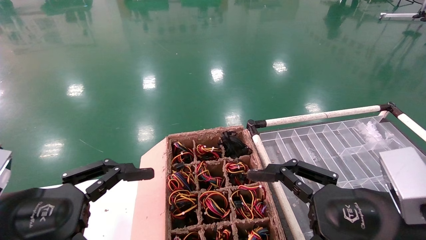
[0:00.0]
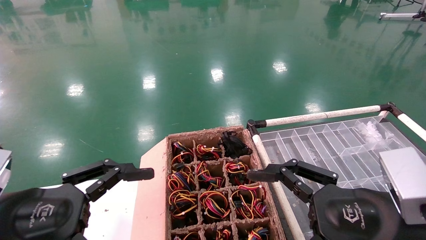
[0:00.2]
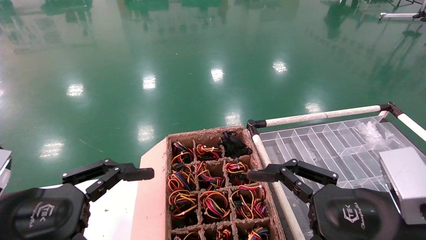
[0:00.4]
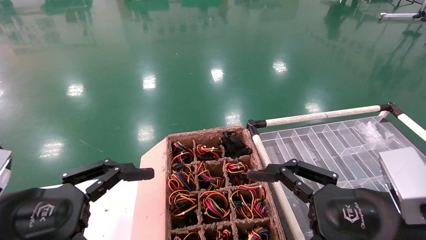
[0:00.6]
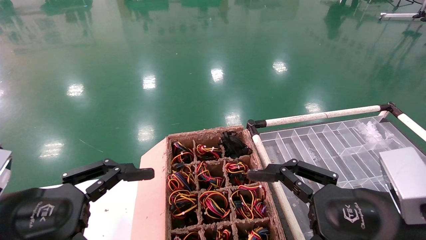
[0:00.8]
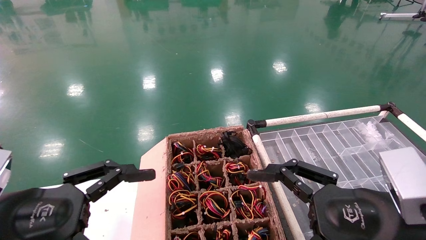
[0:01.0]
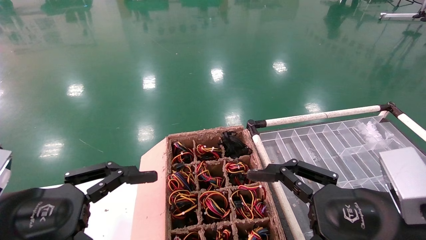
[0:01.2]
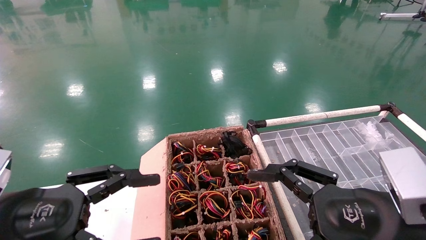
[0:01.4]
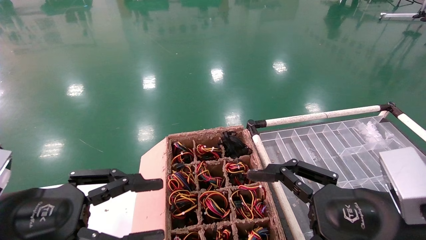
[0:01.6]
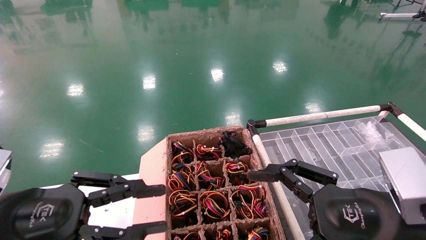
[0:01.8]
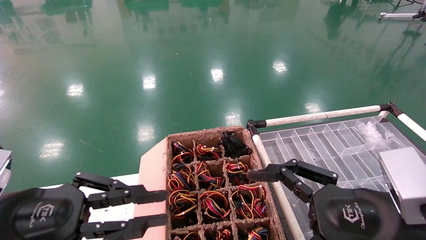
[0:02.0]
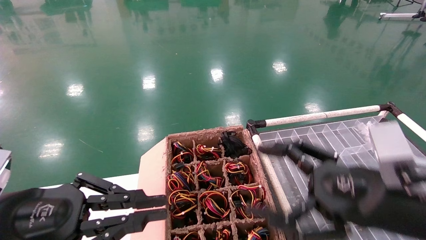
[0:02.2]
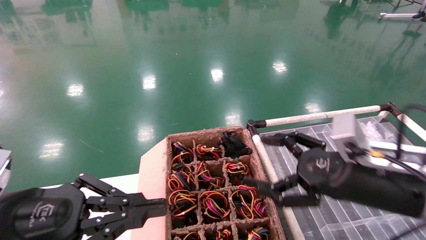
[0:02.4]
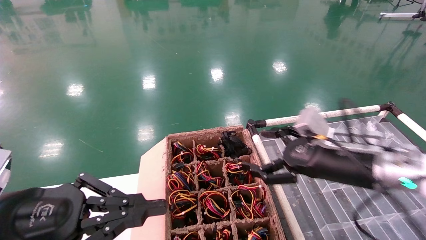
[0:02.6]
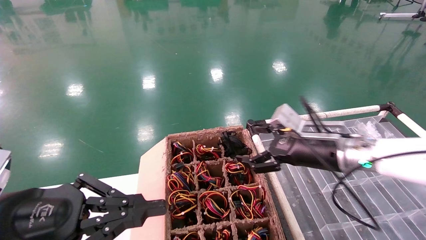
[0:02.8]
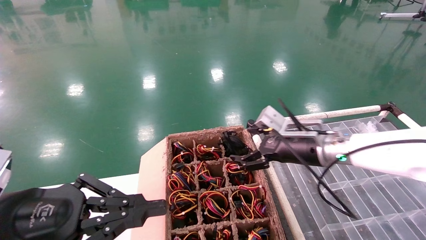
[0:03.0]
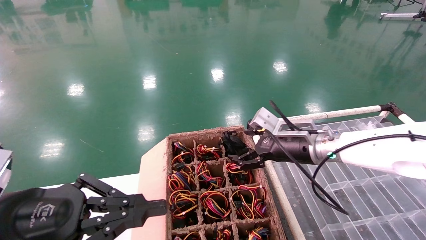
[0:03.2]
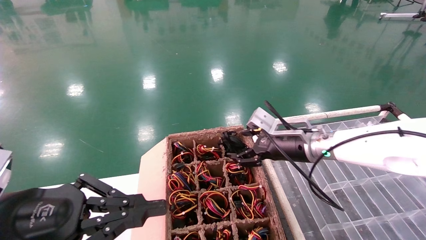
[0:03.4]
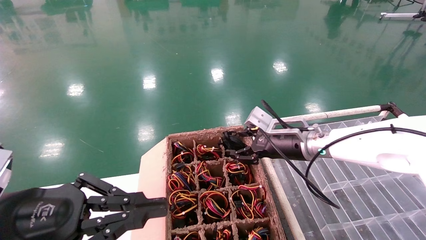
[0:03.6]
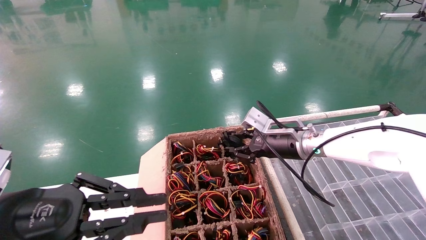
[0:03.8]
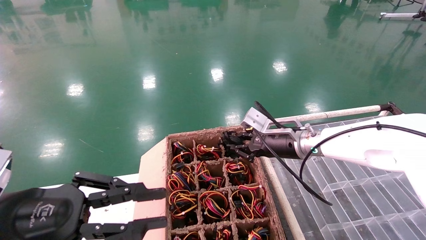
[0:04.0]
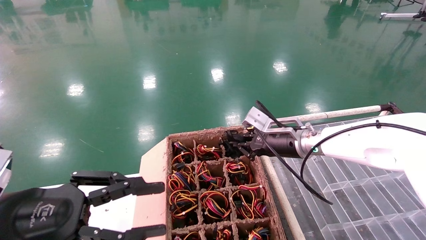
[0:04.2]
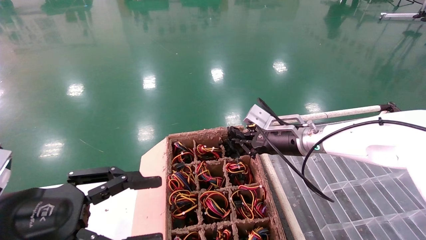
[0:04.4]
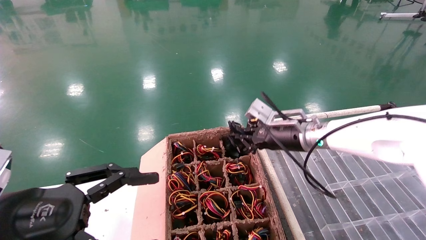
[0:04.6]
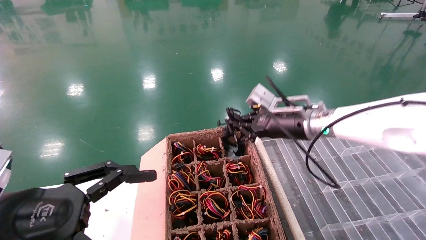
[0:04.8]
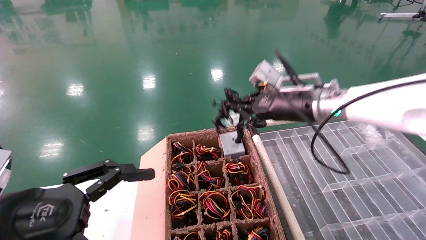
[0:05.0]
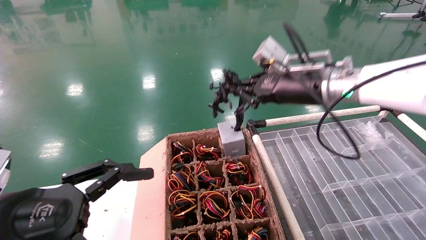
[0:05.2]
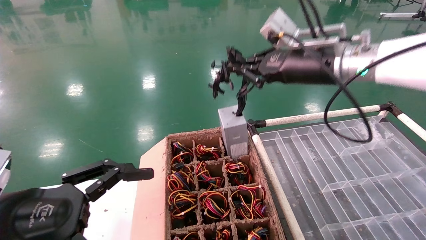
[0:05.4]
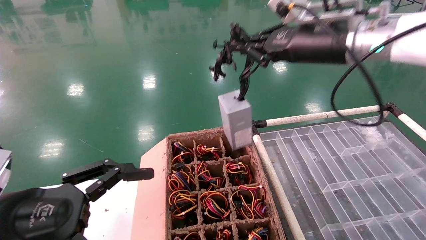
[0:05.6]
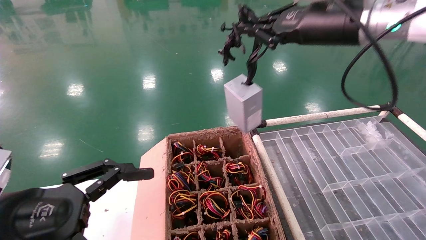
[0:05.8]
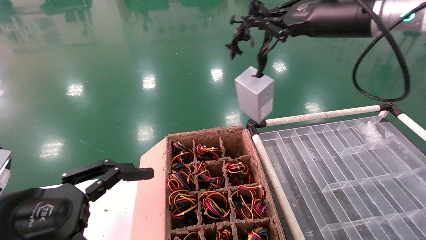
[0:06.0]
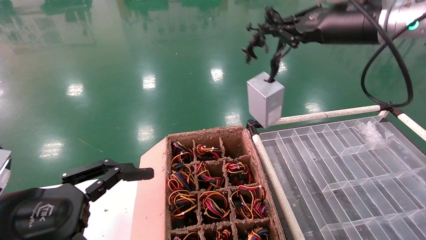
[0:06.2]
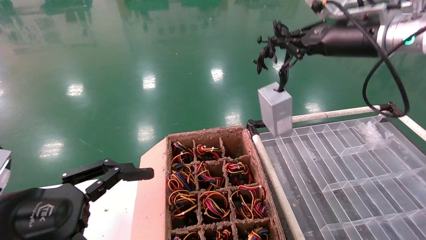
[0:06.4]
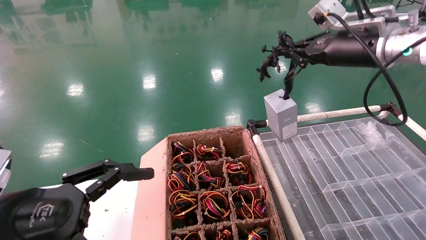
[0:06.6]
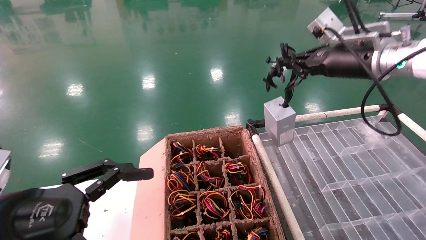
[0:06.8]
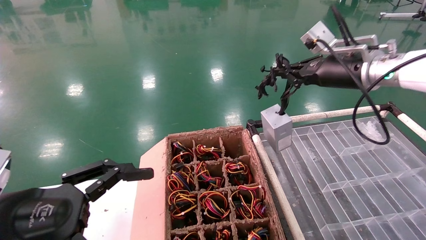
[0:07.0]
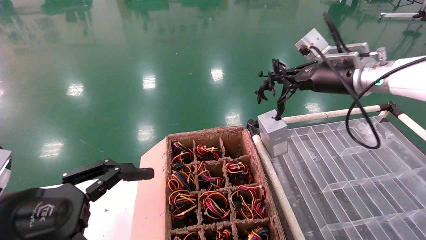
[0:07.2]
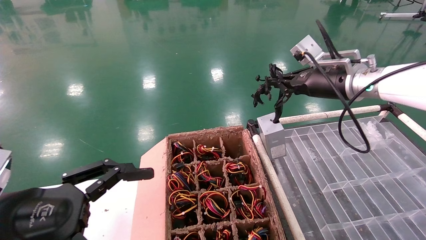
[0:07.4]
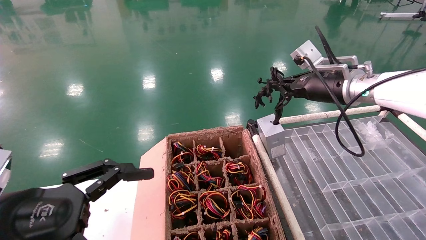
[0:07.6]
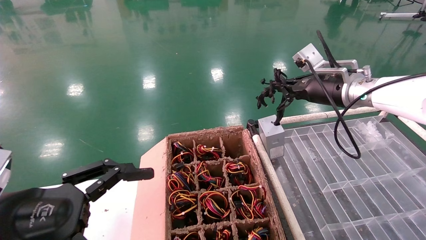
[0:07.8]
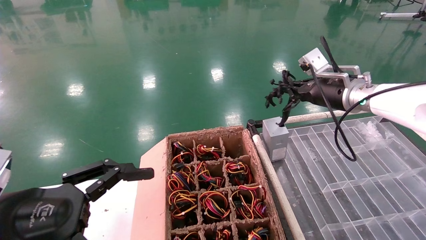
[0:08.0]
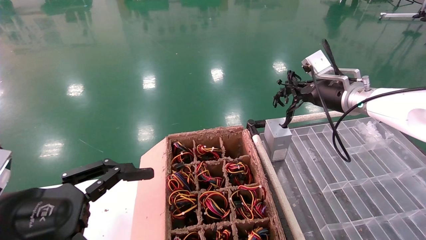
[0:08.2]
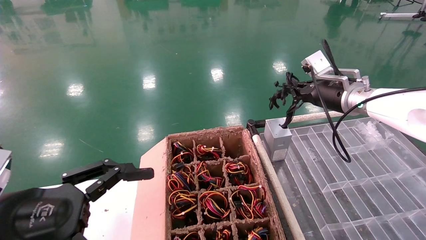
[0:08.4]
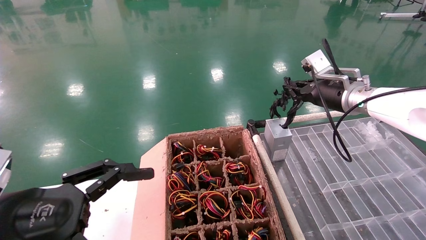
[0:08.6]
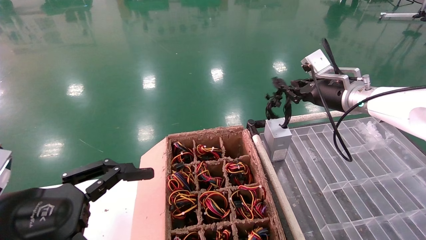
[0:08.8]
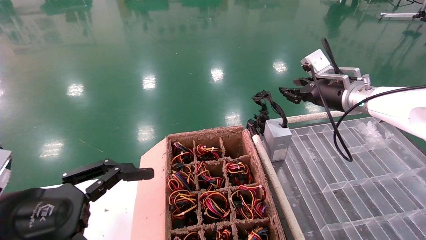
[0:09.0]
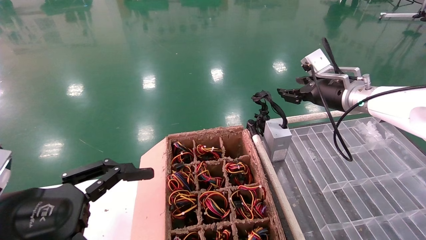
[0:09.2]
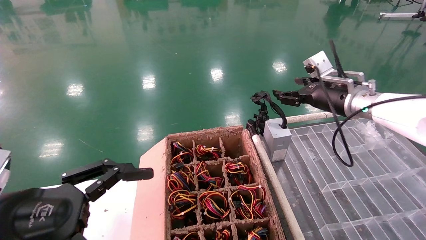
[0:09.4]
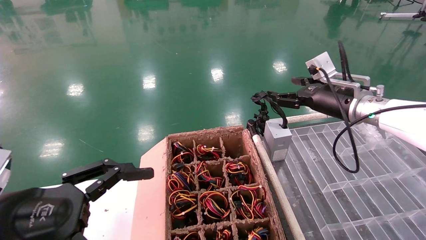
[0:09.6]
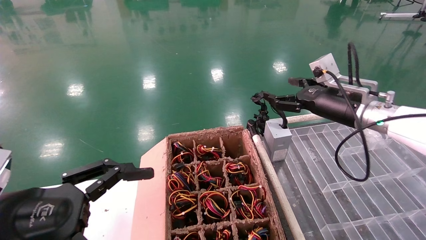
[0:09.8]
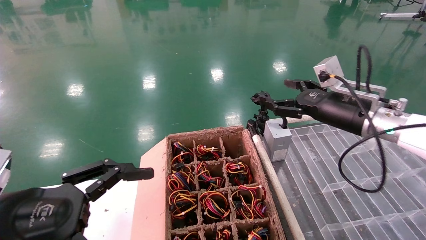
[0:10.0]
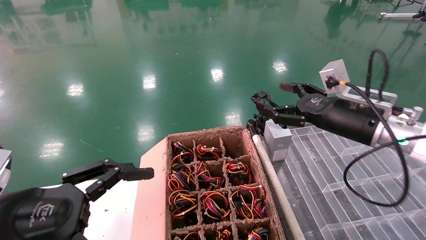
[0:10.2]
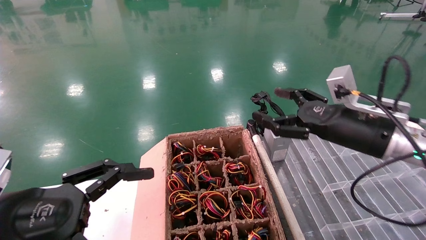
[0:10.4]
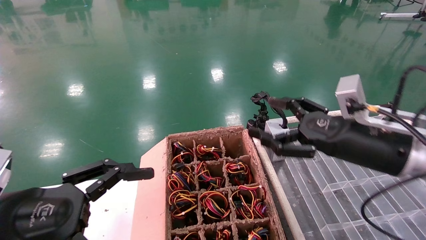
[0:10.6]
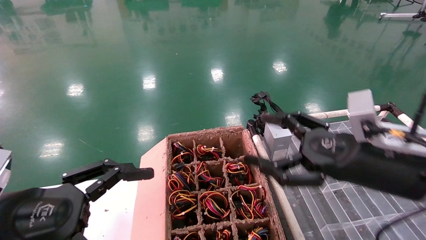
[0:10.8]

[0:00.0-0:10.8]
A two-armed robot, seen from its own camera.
Step, 0:02.6 to 0:04.4: Grab and lift the power supply from the large box.
Step, 0:04.6 to 0:08.6: Place the power supply on the operating table.
0:00.0 to 0:01.6: Both grippers stay about where they are.
0:01.6 to 0:03.0: The right gripper travels forward by roughly 20 cm, while the left gripper closes.
0:03.0 to 0:04.6: The left gripper opens, while the right gripper ends up roughly 5 cm from where it was, and closes up.
0:04.6 to 0:06.2: The left gripper opens; the right gripper shifts roughly 20 cm upward.
0:06.2 to 0:07.8: The right gripper shifts approximately 15 cm downward and forward.
0:07.8 to 0:09.2: The right gripper opens up.
0:09.2 to 0:10.8: The right gripper is displaced backward by about 20 cm, and opens its fingers.

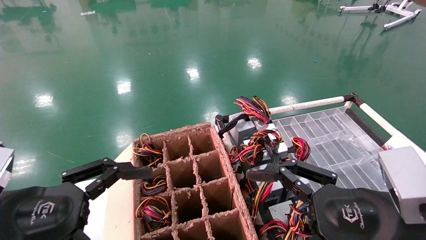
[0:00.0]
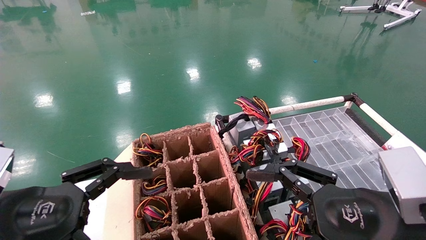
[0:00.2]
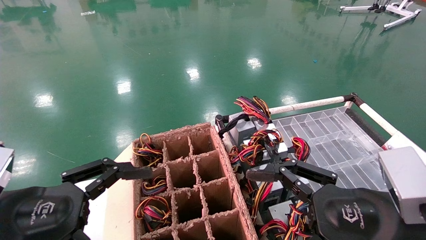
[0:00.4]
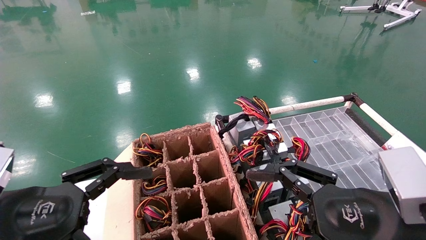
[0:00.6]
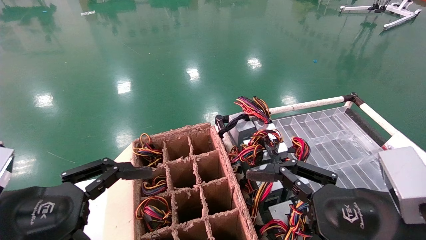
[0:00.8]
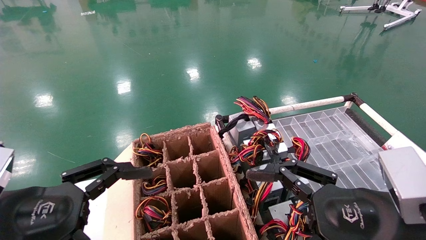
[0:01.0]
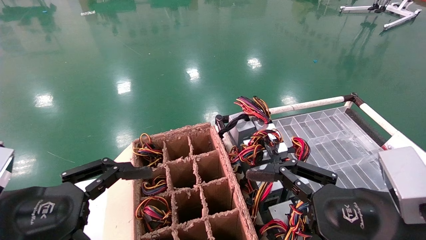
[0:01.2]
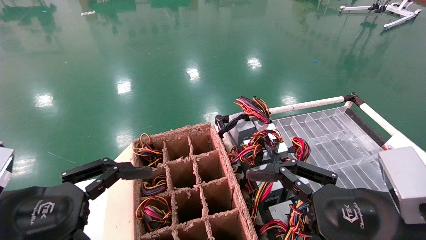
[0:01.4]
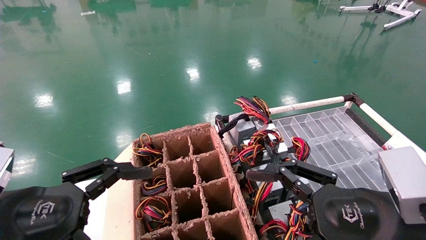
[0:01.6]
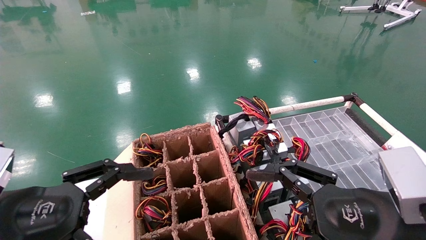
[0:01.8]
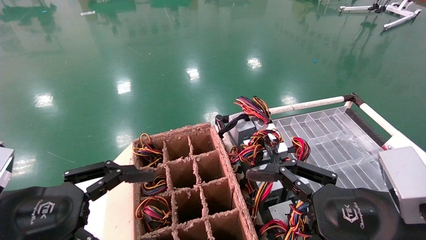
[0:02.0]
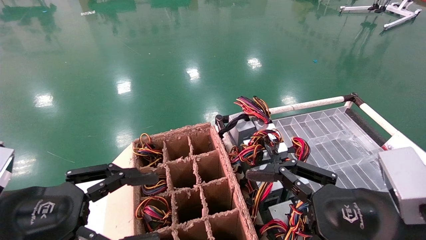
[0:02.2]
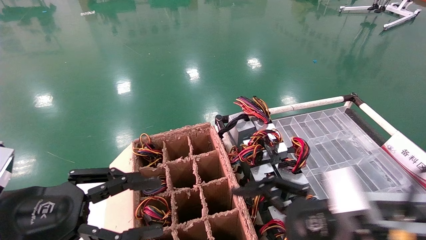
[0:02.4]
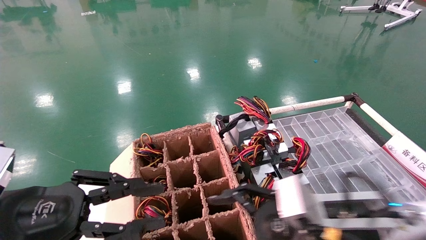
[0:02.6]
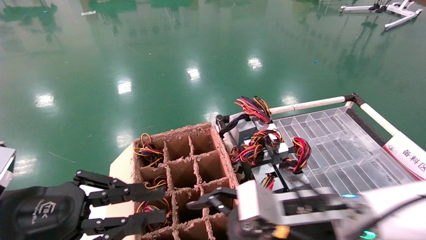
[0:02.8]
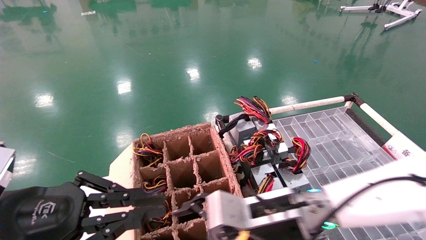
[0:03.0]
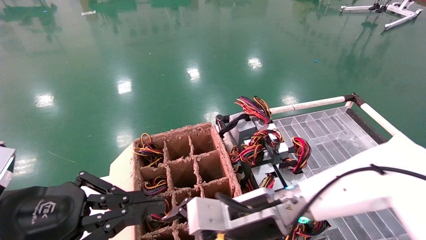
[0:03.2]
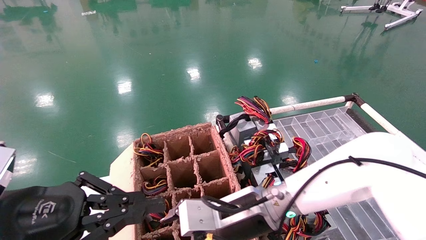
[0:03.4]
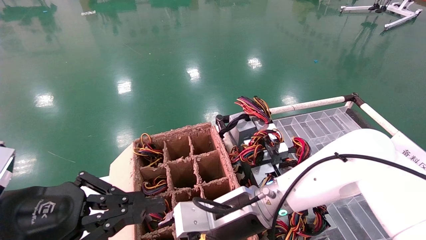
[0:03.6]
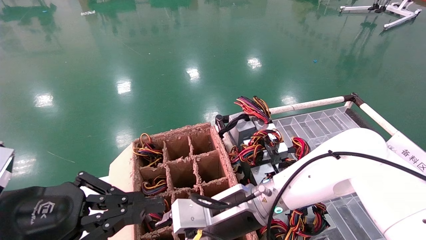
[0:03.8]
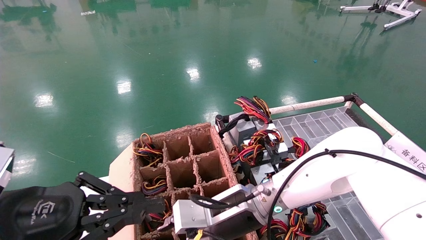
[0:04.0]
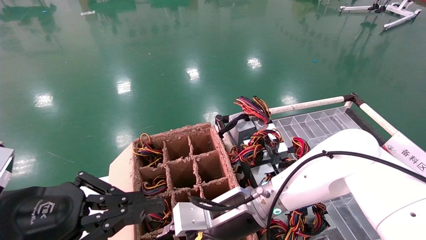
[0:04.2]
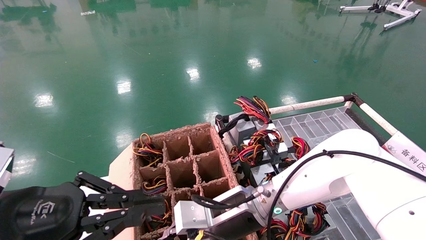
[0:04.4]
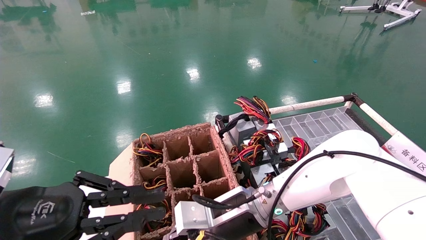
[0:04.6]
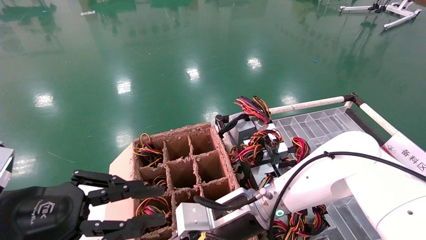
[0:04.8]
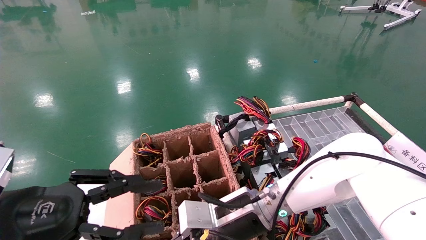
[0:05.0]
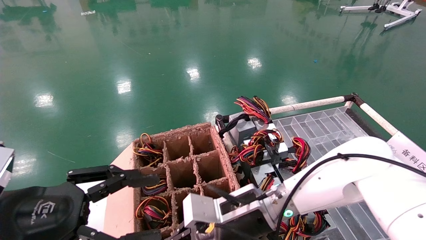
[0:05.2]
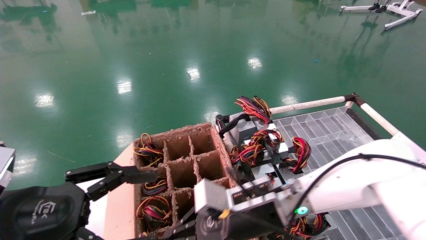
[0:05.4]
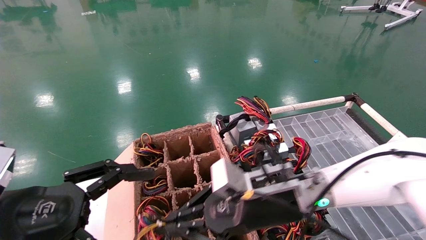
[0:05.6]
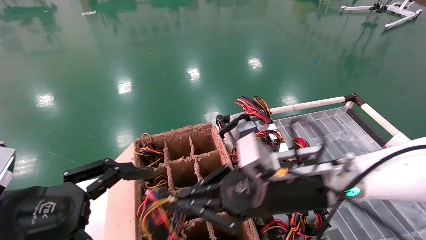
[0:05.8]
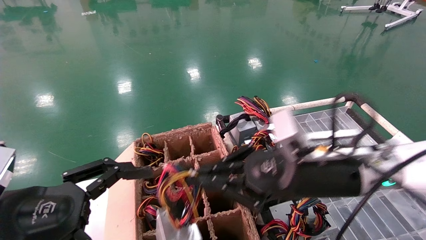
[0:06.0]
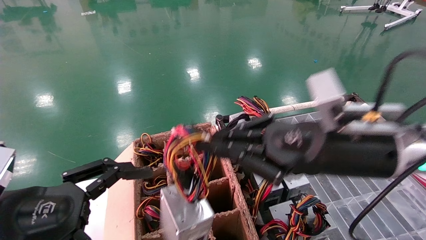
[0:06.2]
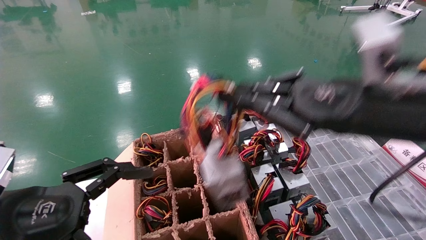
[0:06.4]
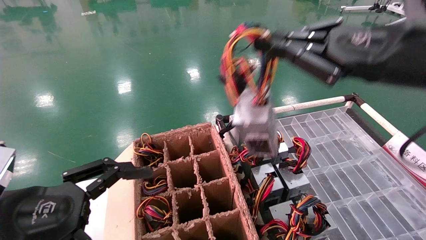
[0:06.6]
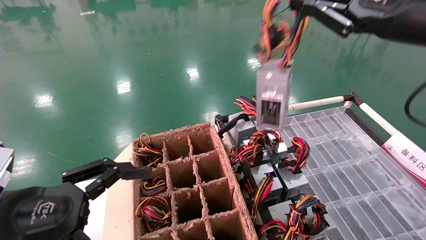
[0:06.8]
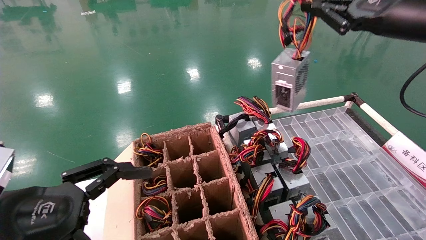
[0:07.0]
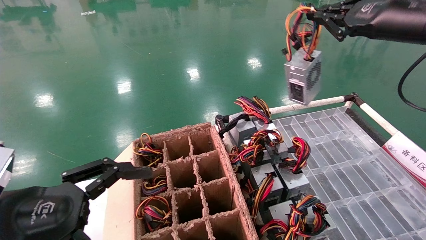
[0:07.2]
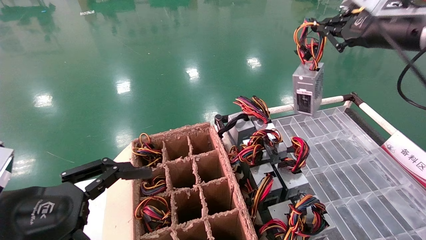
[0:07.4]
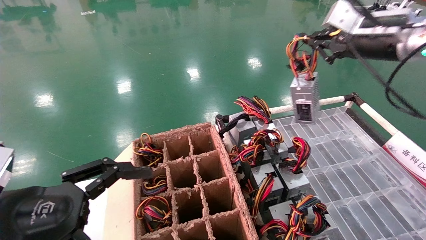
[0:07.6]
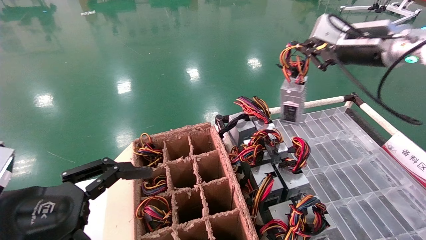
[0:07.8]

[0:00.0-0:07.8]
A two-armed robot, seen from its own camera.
Step, 0:03.4 to 0:05.0: Grab and lift the power supply from the large box.
0:00.0 to 0:01.6: Both grippers stay put.
0:01.6 to 0:03.2: The right gripper moves to the left and forward, about 20 cm, while the left gripper closes its fingers.
0:03.2 to 0:04.6: The right gripper closes.
0:04.6 to 0:06.2: The left gripper opens its fingers, while the right gripper moves upward, to the right and backward, about 20 cm.
0:06.2 to 0:07.8: The right gripper travels forward, upward and to the right by about 20 cm.
